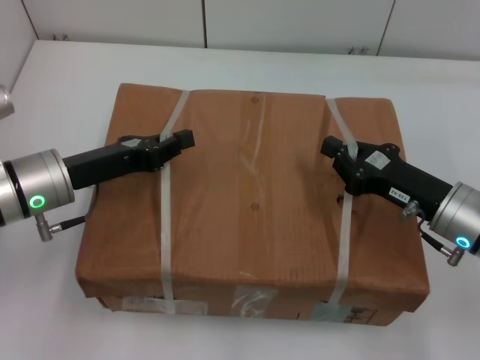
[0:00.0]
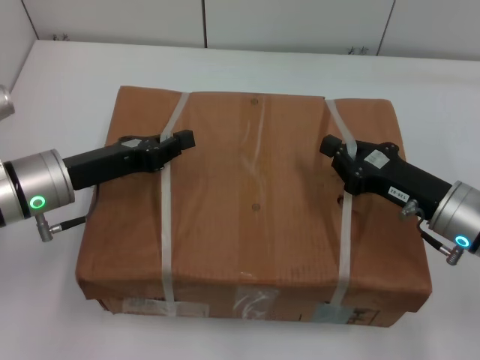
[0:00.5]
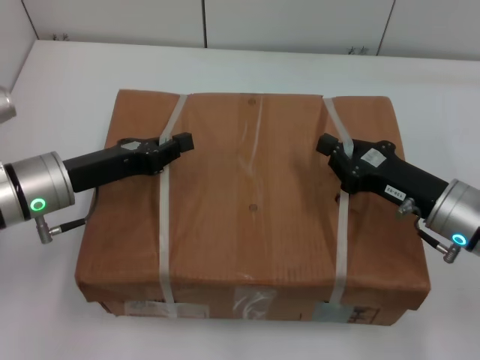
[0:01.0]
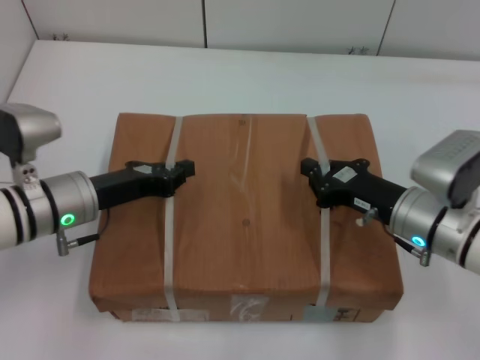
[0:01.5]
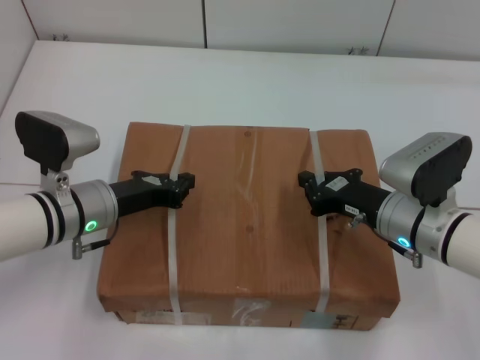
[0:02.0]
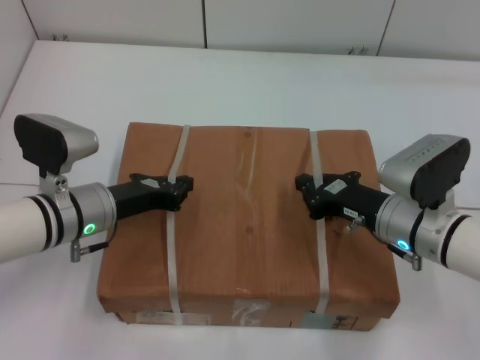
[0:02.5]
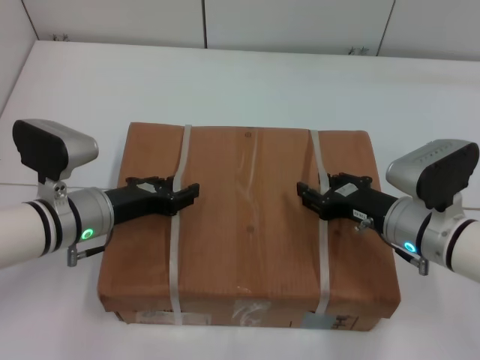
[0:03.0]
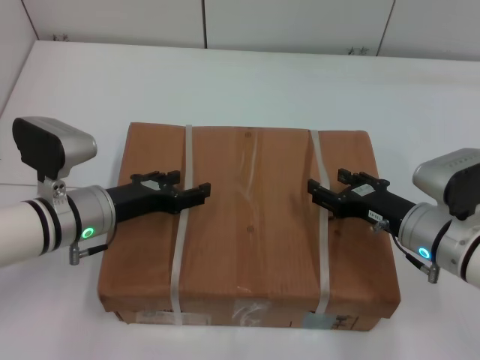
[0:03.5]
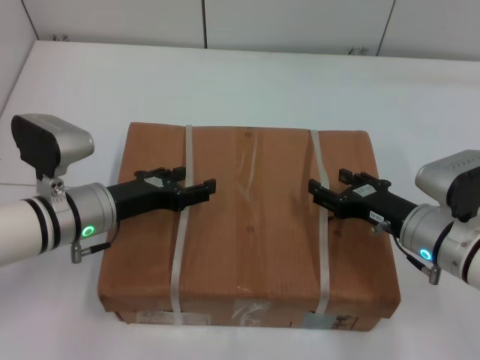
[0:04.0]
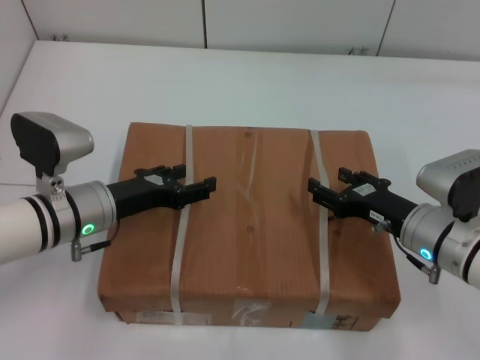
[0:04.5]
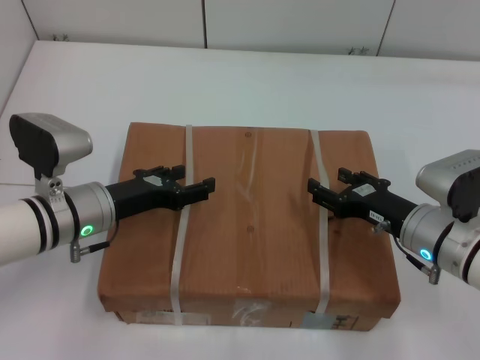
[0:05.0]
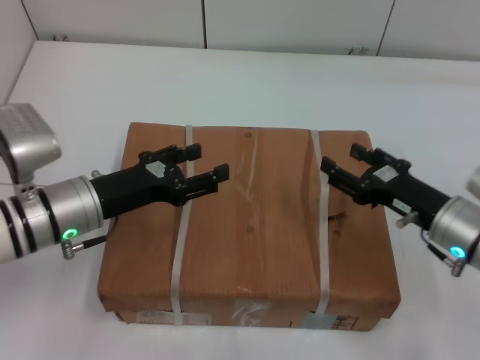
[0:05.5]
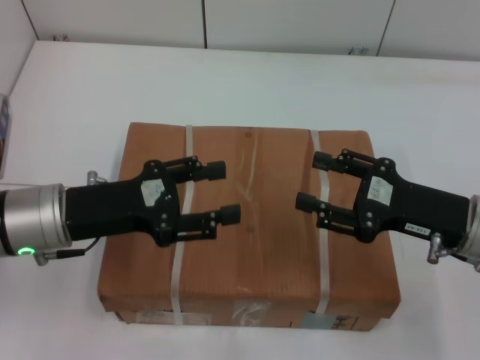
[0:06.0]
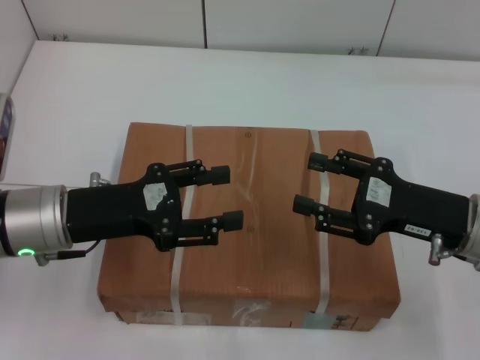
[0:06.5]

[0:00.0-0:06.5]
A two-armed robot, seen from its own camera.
Task of the whole recording: place the box on the table with both arms.
Step, 0:00.0 to 0:02.0: Place the box on the table with left gripper.
Step, 0:00.0 to 0:02.0: Place the box on the table with right gripper.
Step, 0:02.5 to 0:03.0: Loosen the box on the table with left gripper.
Step, 0:02.5 to 0:03.0: Loosen the box on the table with right gripper.
0:00.0 to 0:02.0: The left gripper heads downward, covering approximately 5 cm. The right gripper ends up about 5 cm from where it was.
0:02.0 to 0:04.5: The right gripper opens; the left gripper opens.
0:04.5 to 0:06.5: The grippers both shift upward by some 5 cm.
